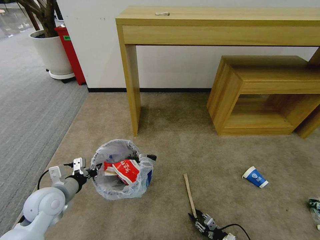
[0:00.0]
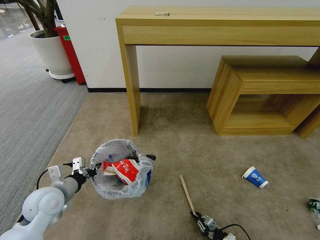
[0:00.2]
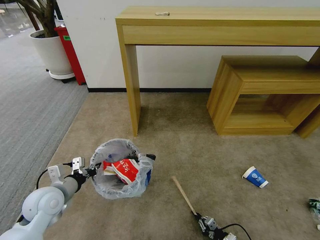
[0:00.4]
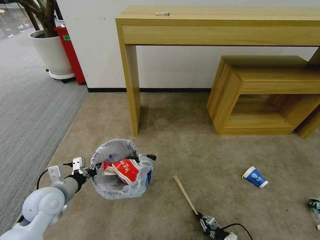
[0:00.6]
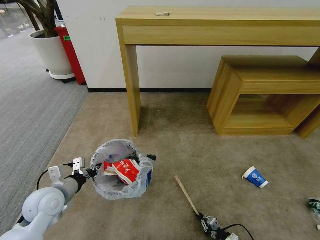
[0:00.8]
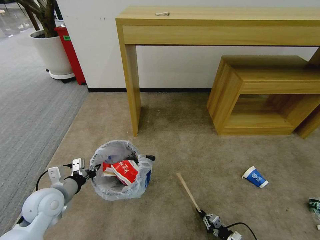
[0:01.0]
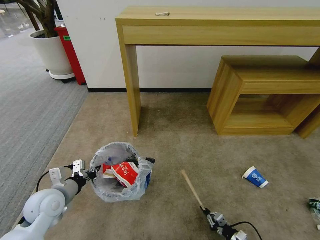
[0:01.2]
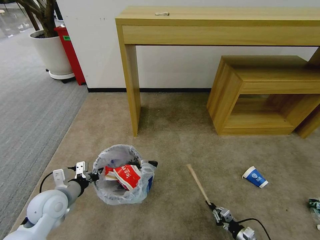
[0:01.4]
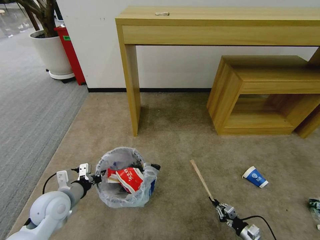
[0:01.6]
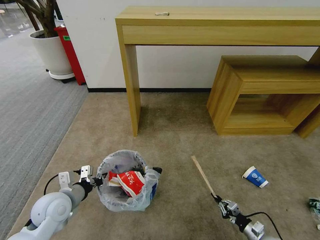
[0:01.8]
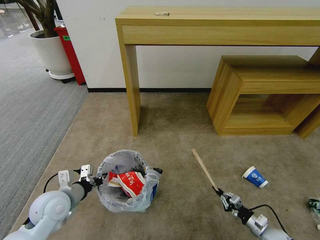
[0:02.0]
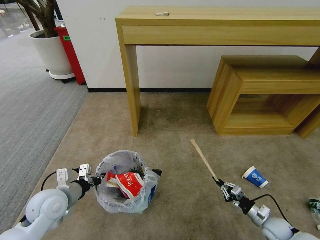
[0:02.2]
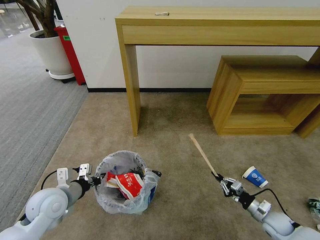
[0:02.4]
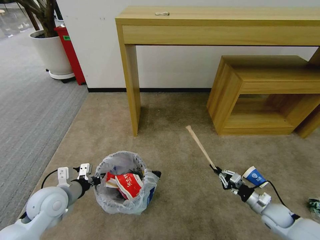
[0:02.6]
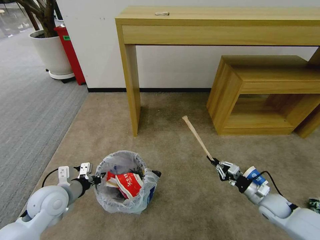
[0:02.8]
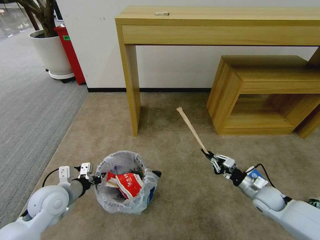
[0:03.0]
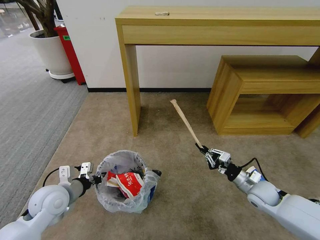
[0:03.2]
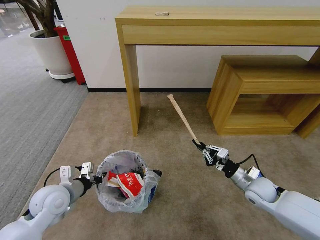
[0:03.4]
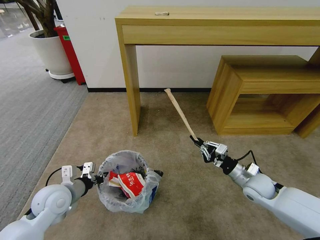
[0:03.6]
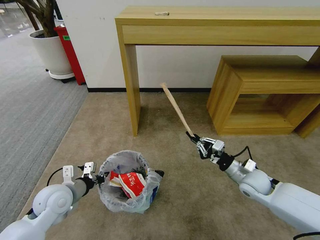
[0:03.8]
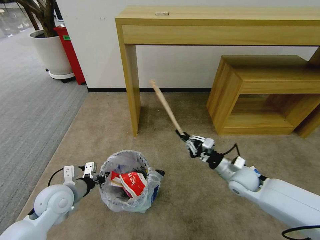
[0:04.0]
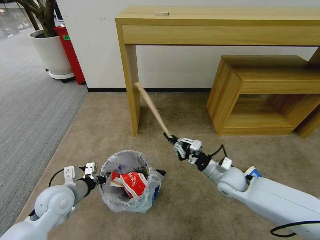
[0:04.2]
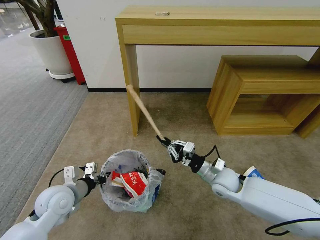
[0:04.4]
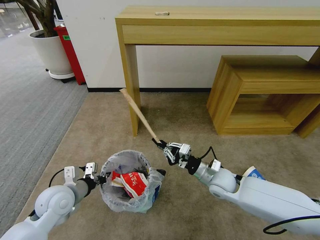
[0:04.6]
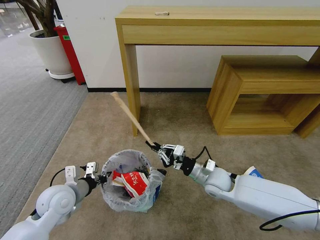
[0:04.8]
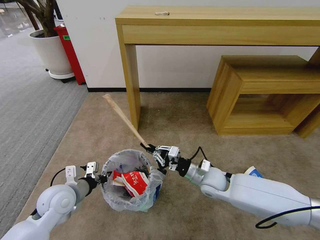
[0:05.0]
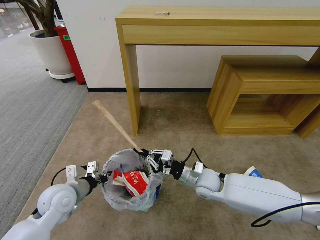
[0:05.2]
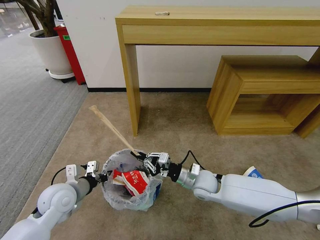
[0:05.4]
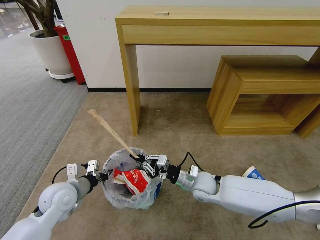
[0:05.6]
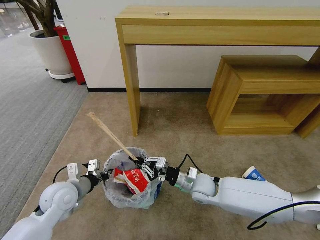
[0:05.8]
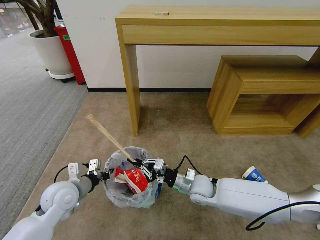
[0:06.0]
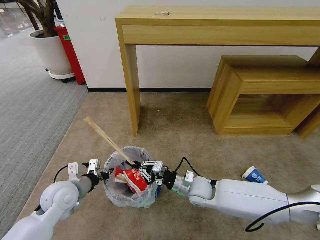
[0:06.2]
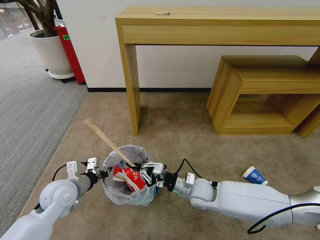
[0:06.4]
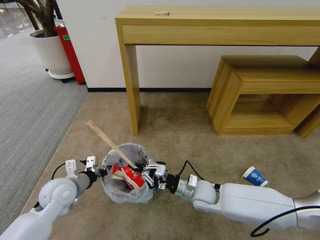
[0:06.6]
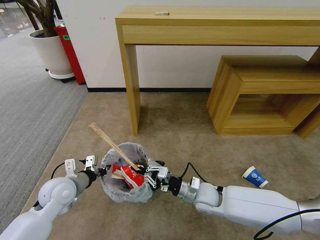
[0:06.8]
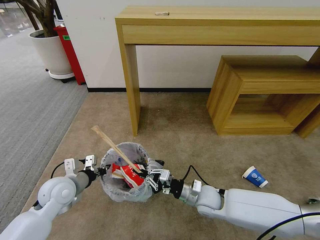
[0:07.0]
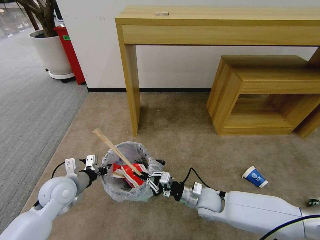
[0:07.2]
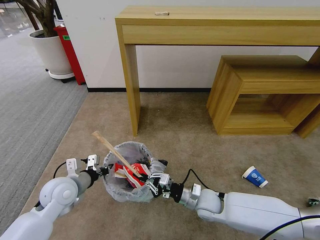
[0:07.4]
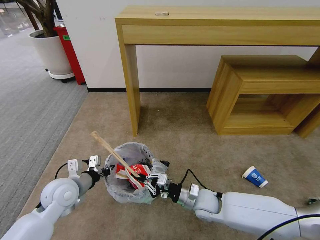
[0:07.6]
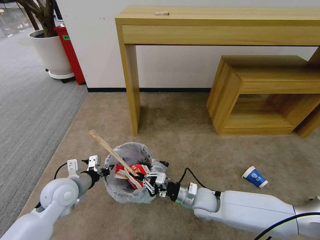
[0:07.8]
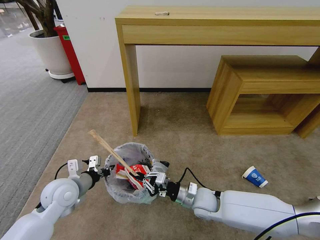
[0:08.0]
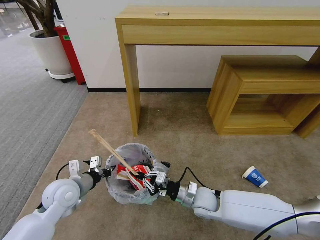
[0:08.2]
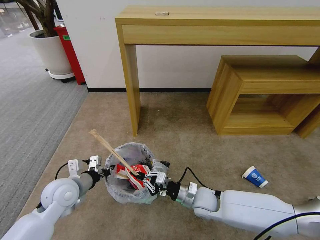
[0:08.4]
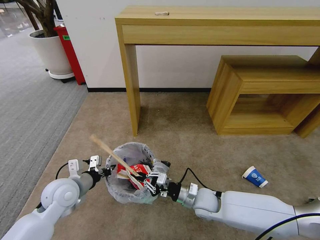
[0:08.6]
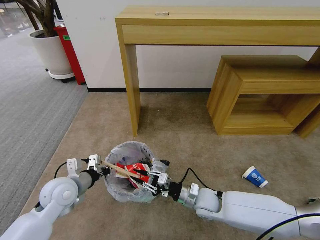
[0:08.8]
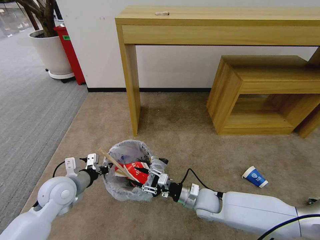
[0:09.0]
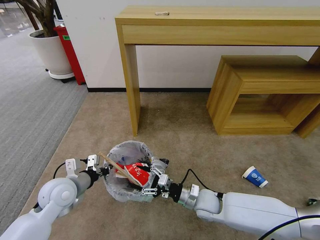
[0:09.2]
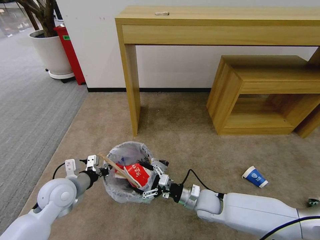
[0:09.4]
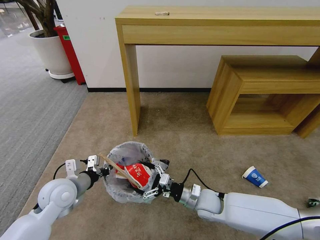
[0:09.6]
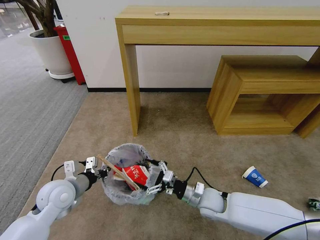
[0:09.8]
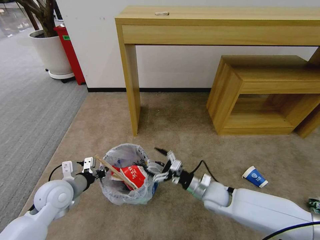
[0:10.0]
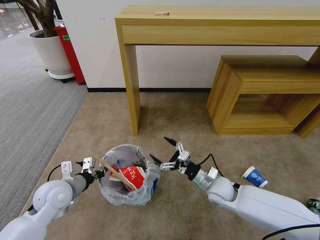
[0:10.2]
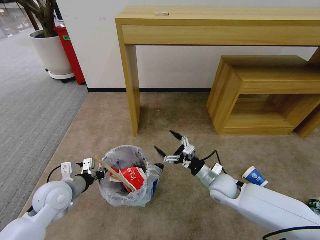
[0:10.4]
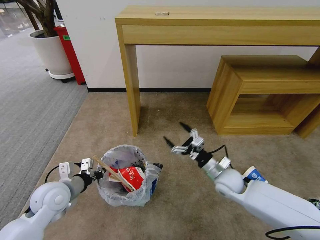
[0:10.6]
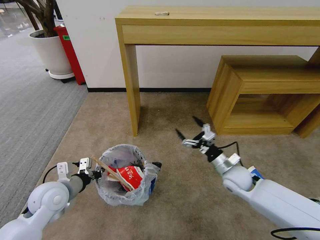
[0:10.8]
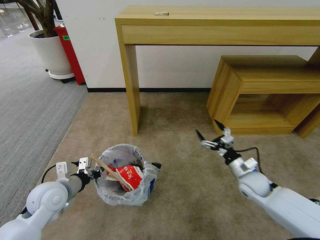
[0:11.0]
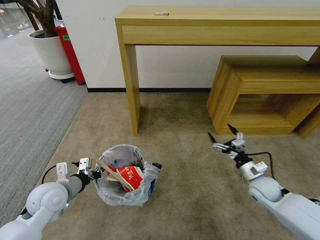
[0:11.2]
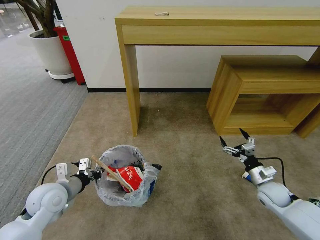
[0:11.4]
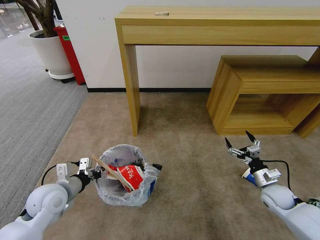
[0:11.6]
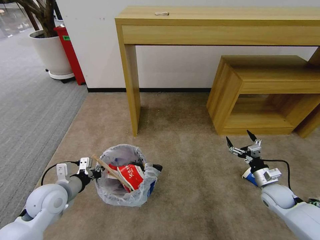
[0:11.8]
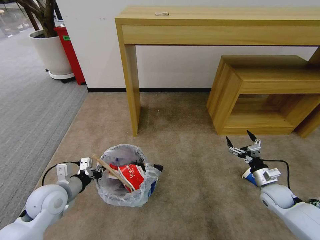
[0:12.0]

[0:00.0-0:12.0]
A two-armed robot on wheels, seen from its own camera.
Task of the whole recording: Pick up the trash bin and place the garbage on the floor into it.
0:00.0 to 0:01.6: The right gripper is displaced to the right and upward by some 10 cm.
0:01.6 to 0:03.0: The right gripper goes about 25 cm upward and forward.
0:03.0 to 0:04.4: The right gripper moves to the left, some 15 cm.
0:04.4 to 0:06.0: The right gripper moves to the left, roughly 10 cm.
0:06.0 to 0:07.6: The right gripper changes place by approximately 5 cm.
0:07.6 to 0:09.0: The right gripper opens.
0:09.0 to 0:10.4: The right gripper moves to the right, some 5 cm, and opens up.
0:10.4 to 0:12.0: The right gripper goes roughly 20 cm to the right.

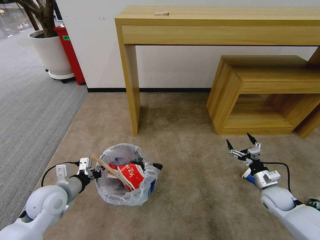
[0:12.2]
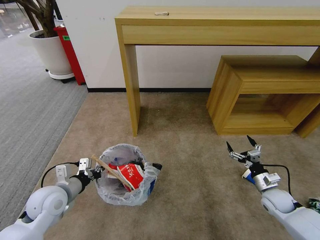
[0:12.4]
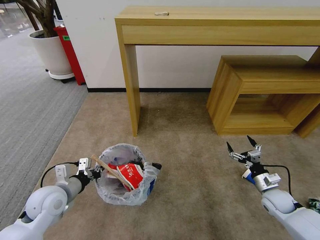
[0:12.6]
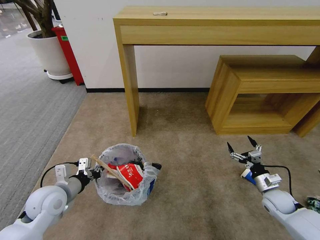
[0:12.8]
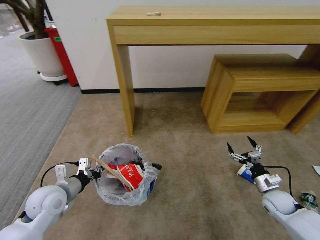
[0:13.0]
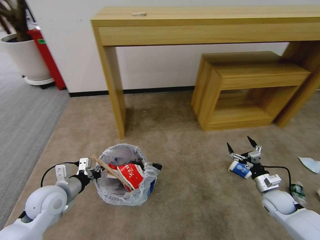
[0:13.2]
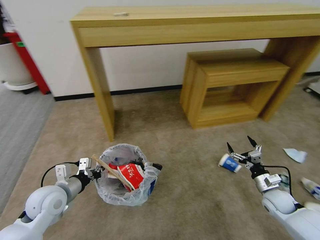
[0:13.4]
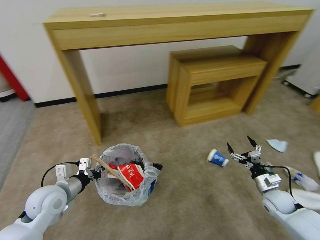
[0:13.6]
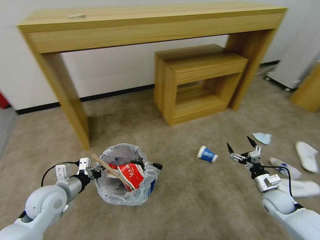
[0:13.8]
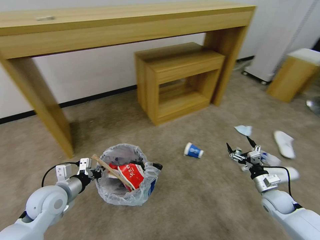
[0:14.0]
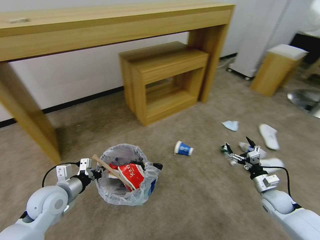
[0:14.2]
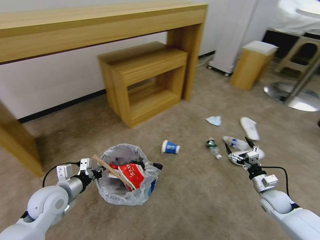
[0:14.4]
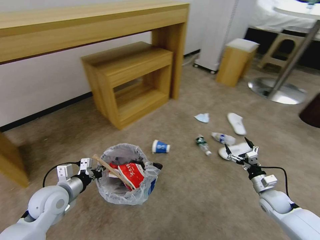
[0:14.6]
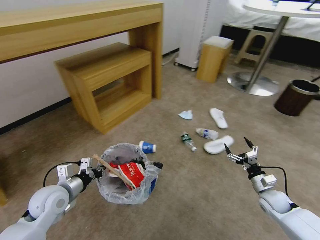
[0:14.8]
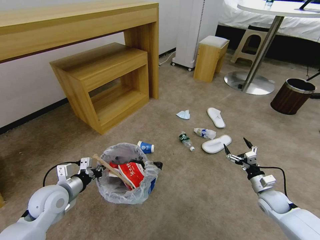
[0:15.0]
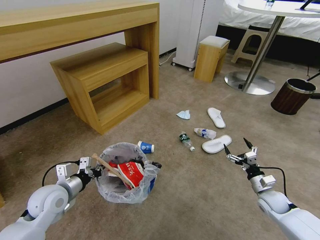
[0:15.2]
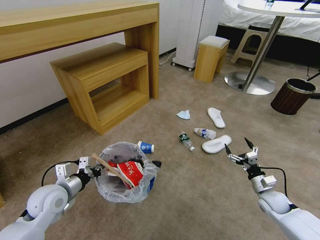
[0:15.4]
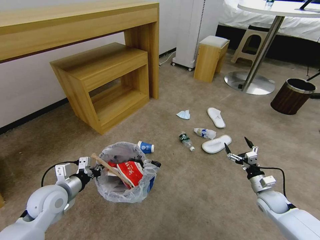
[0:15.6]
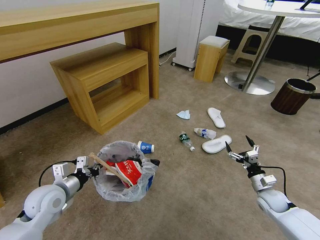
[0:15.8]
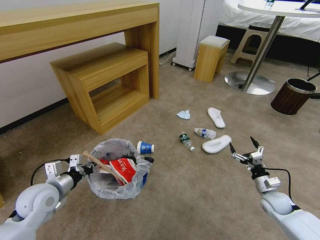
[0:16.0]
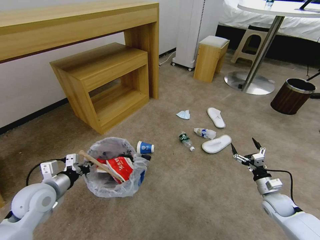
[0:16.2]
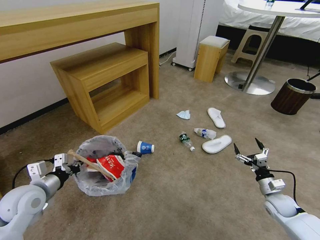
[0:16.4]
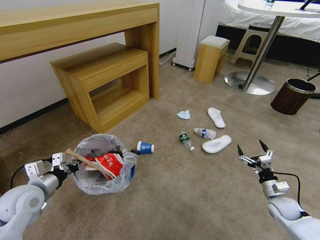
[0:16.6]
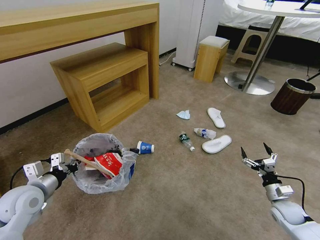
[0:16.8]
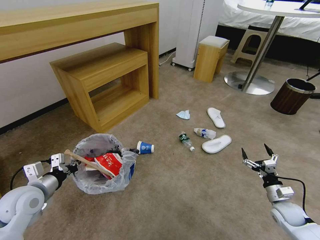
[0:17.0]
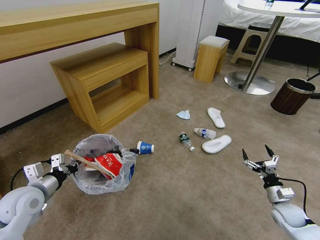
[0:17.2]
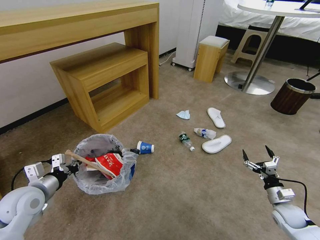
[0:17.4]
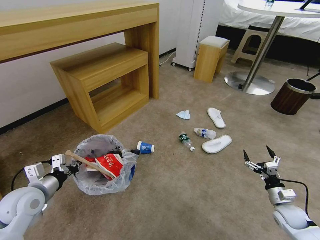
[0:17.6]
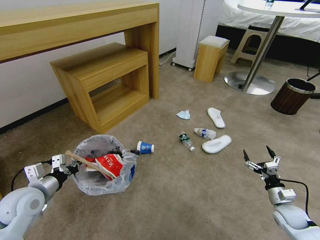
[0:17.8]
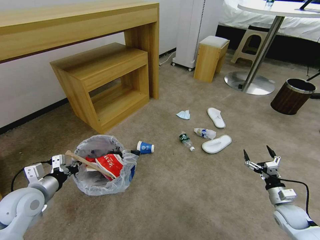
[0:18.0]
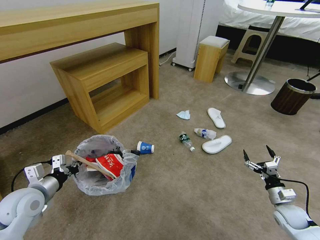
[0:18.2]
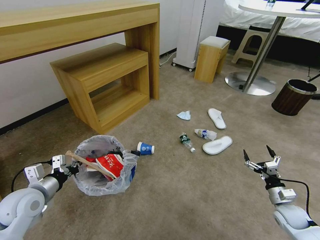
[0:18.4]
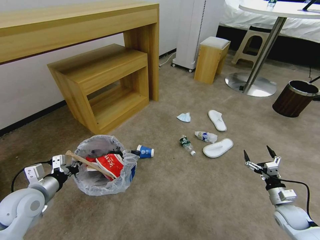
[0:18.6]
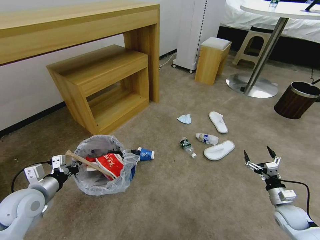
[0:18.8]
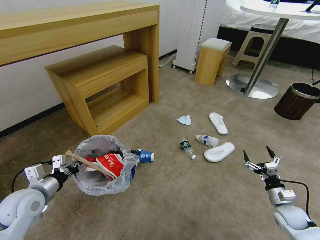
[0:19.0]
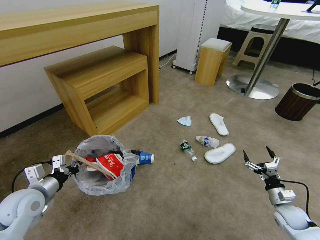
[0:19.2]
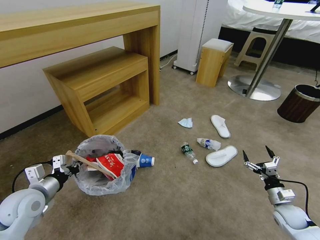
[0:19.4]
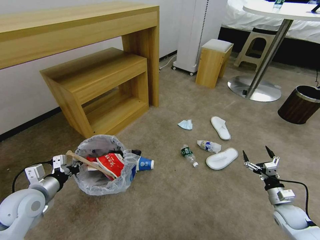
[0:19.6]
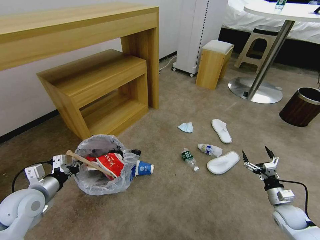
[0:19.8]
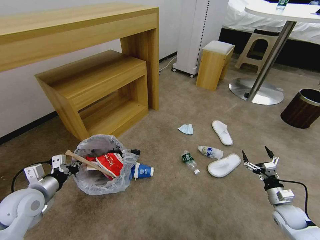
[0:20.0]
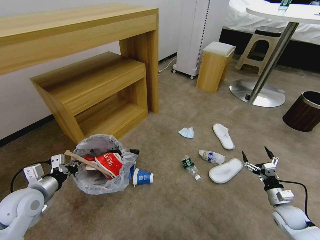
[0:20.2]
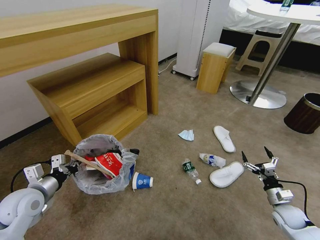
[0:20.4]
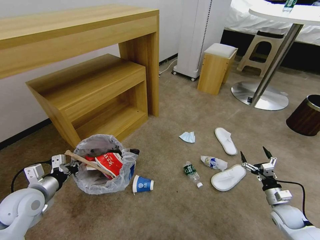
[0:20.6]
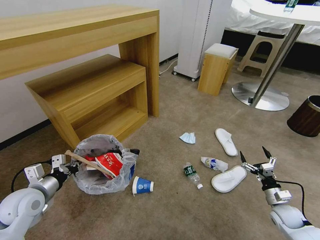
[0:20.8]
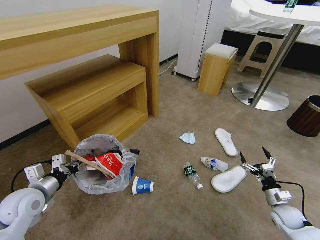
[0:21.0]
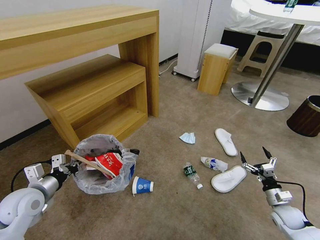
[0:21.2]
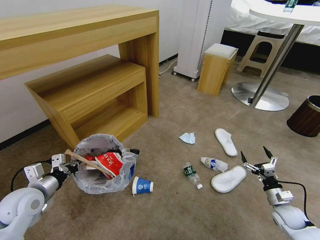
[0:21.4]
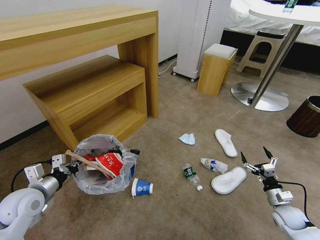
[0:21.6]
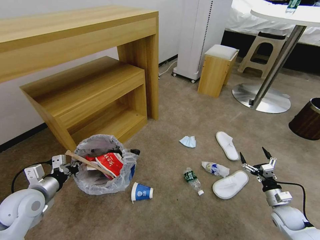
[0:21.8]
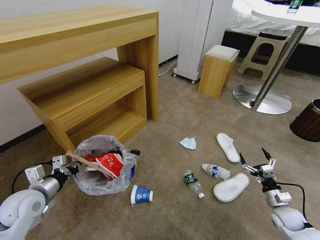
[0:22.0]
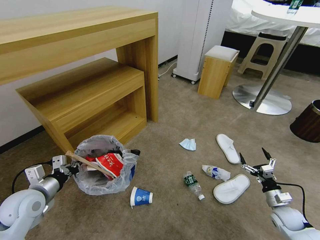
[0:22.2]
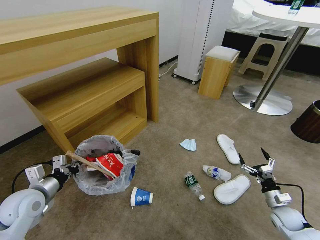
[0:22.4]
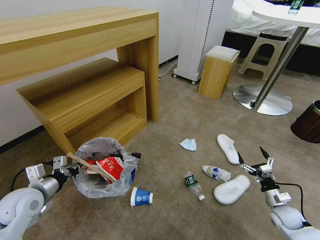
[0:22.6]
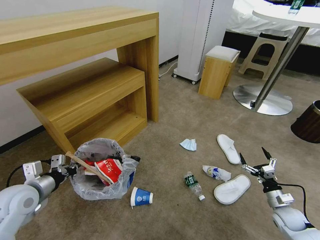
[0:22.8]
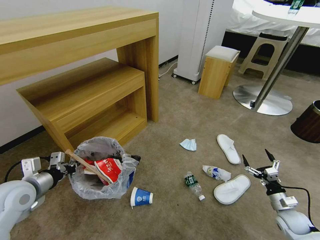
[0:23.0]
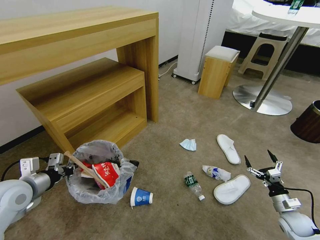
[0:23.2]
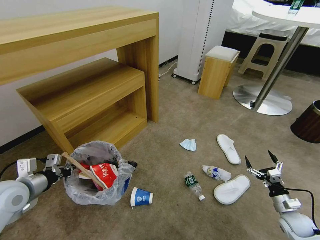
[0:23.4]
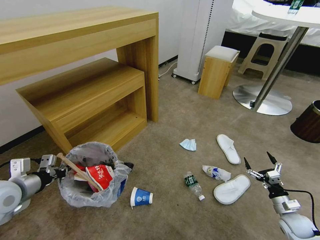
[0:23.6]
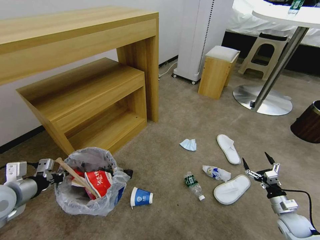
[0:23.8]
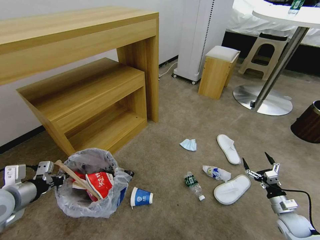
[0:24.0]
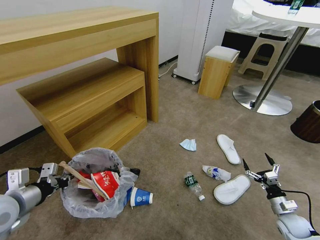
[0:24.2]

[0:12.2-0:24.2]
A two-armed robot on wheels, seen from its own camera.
Task of the whole recording: Pick up the trash bin and place the garbage on the floor into it.
0:15.2 to 0:16.6: The left gripper ends up about 5 cm from where it was.
0:16.6 to 0:18.2: The grippers make only small movements.
0:22.6 to 0:24.2: The left gripper is displaced upward by roughly 5 cm.
